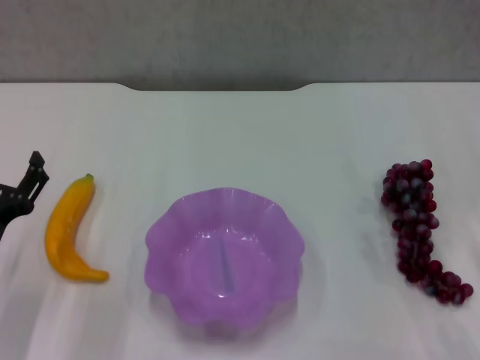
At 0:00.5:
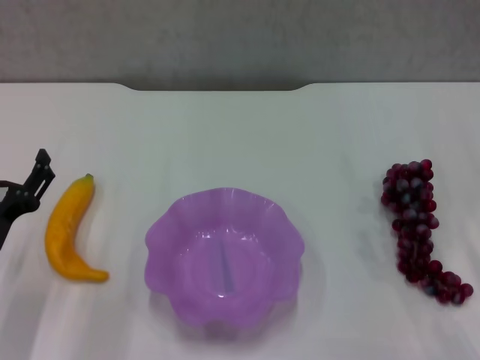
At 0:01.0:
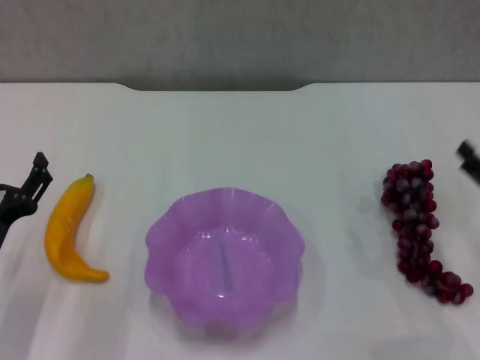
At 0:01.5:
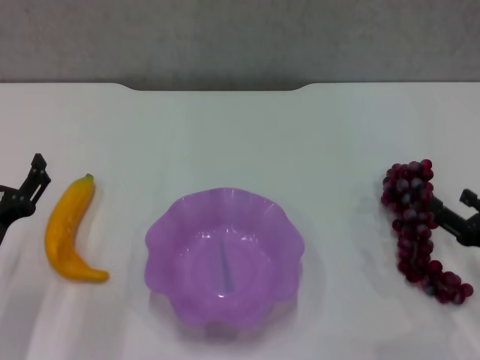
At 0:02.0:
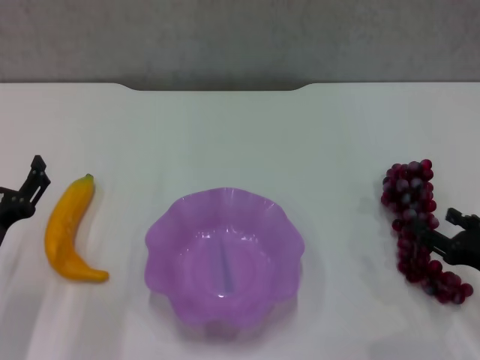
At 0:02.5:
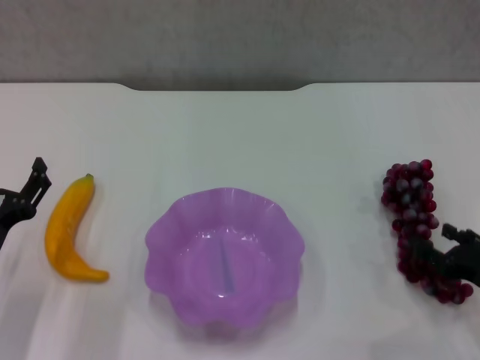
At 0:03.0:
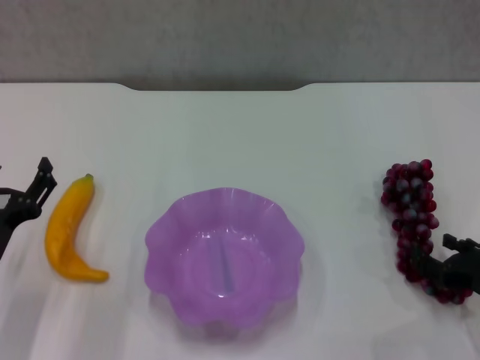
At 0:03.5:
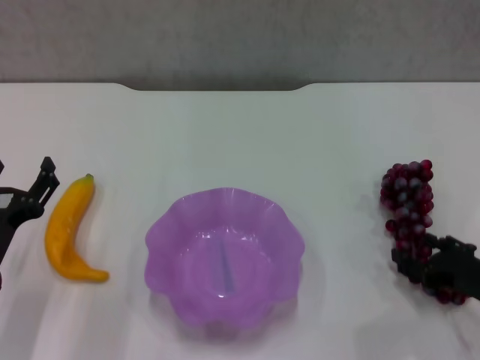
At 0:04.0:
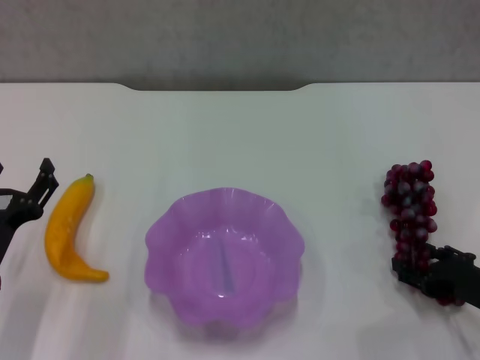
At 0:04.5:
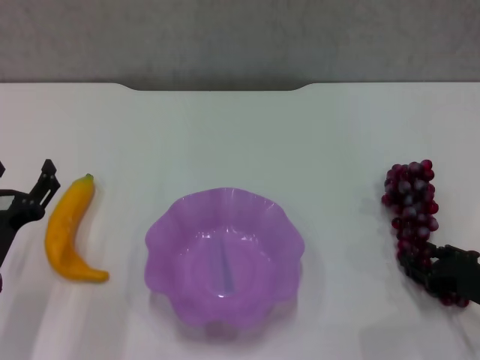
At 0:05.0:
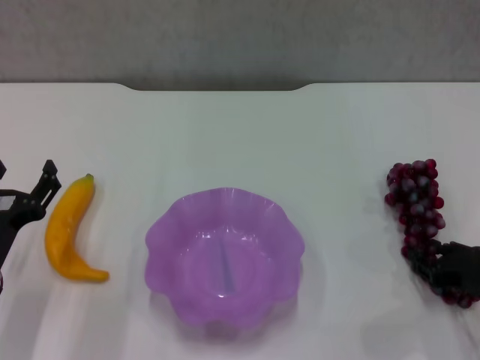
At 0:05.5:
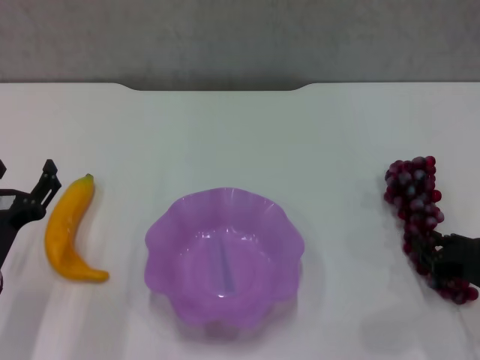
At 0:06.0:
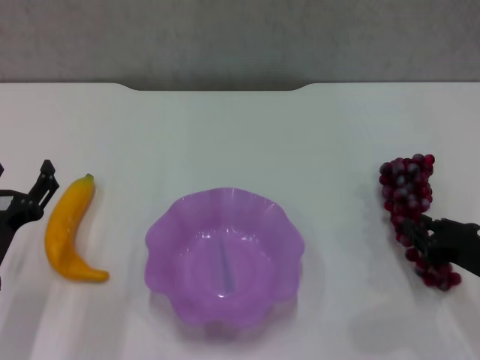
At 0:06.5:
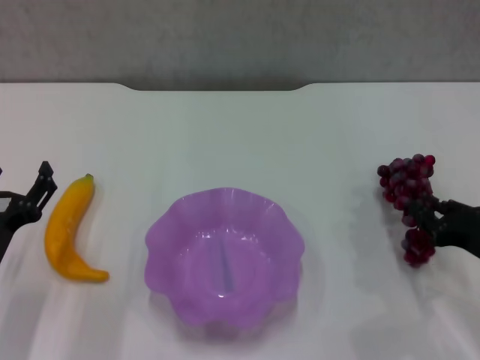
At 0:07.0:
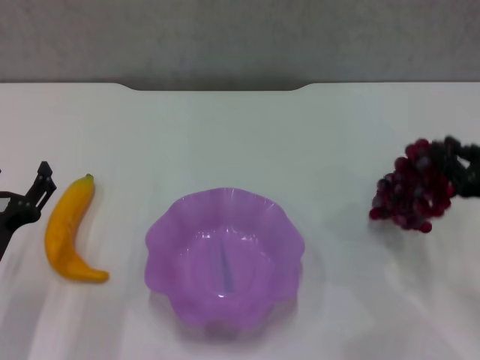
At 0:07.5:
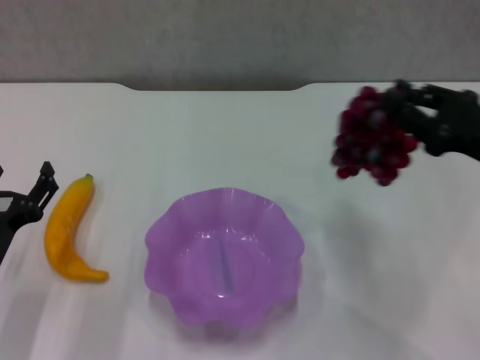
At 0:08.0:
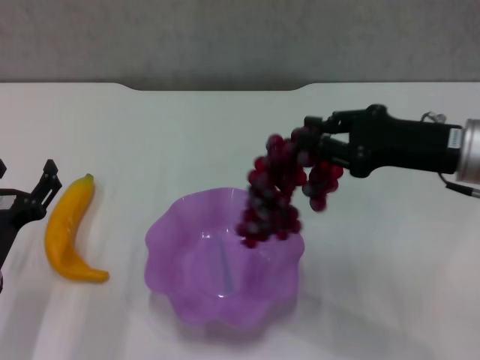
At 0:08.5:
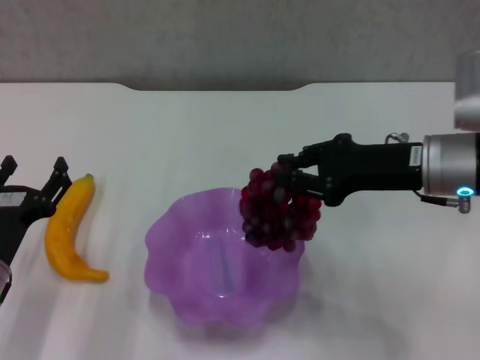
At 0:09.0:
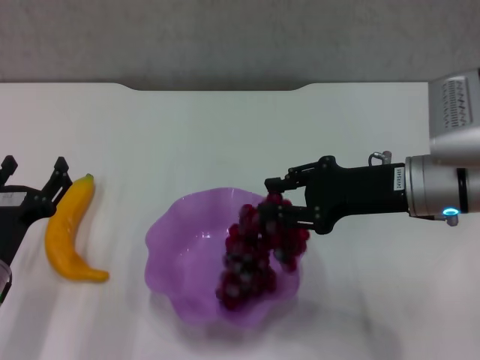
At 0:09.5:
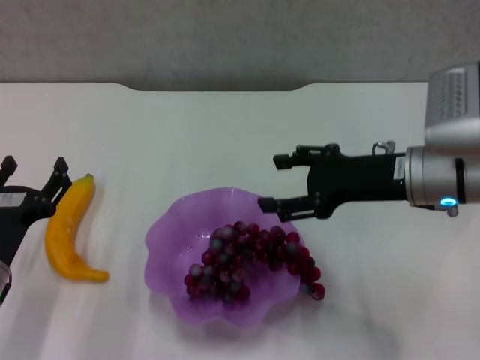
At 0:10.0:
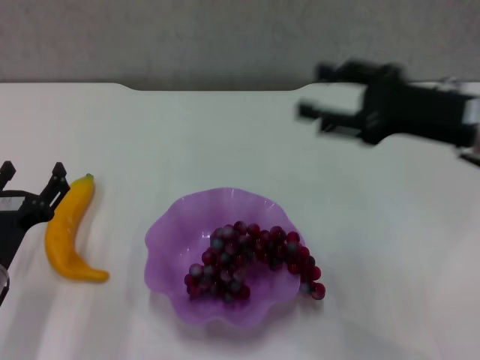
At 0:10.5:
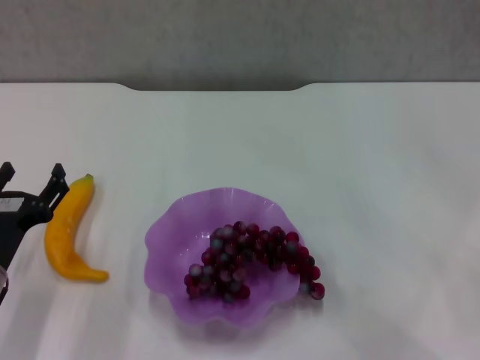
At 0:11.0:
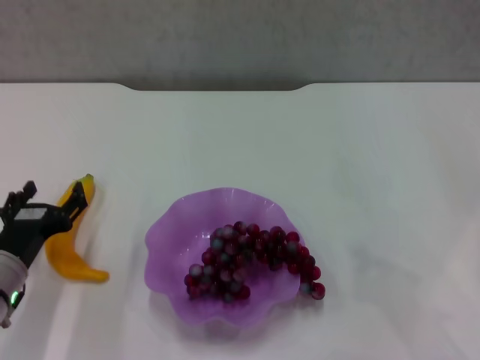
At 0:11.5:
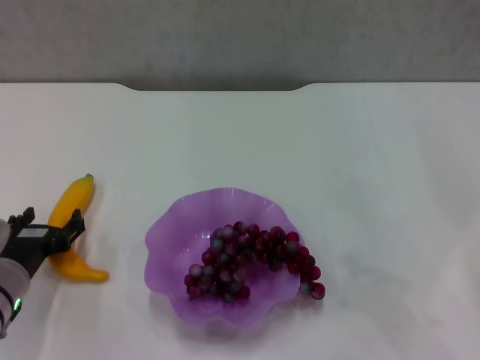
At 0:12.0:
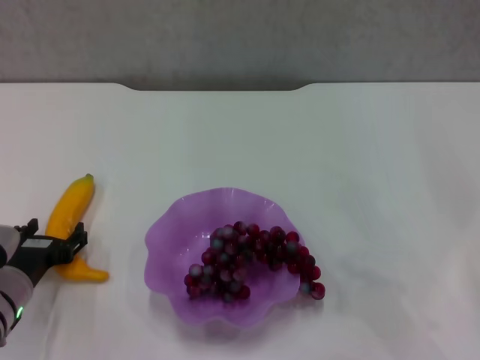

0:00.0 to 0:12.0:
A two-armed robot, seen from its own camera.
Step, 0:00.0 to 0:04.5: Grasp the grape with right gripper.
Step, 0:05.5 to 0:09.5: Place the grape in the purple plate with right gripper.
0:00.0 to 0:02.0: The right gripper is displaced downward by some 5 cm.
0:02.0 to 0:04.0: The grippers stay close to where they were, moving slightly.
0:04.0 to 0:06.0: The right gripper closes.
0:06.0 to 0:08.0: The right gripper goes some 20 cm upward, to the left and forward.
0:08.0 to 0:10.0: The right gripper opens its fingers.
0:10.0 to 0:12.0: The right gripper heads to the right, downward and backward, covering approximately 20 cm, and closes.

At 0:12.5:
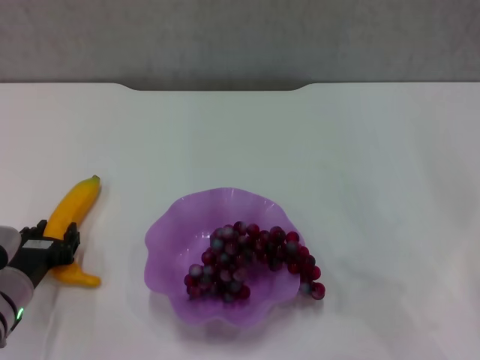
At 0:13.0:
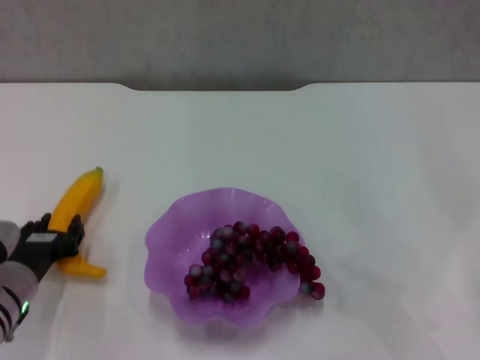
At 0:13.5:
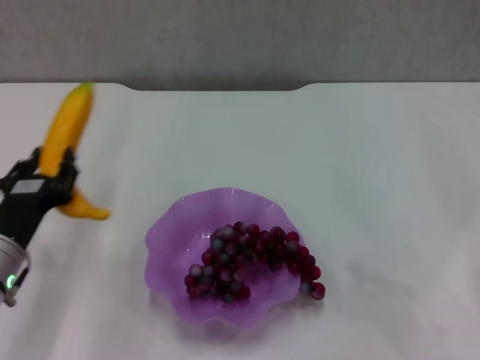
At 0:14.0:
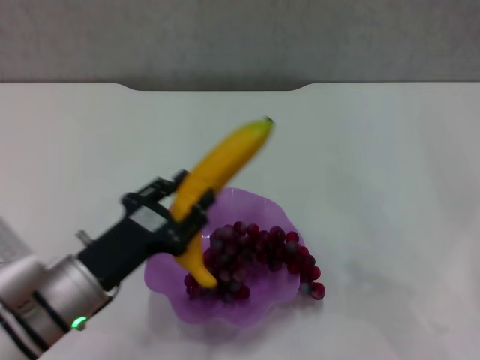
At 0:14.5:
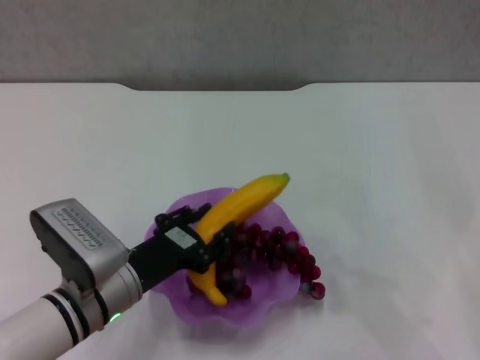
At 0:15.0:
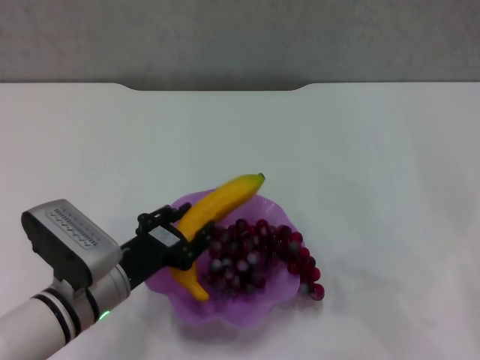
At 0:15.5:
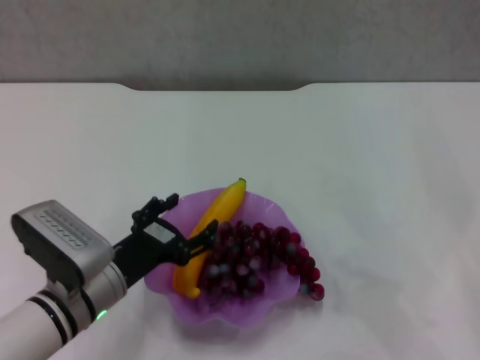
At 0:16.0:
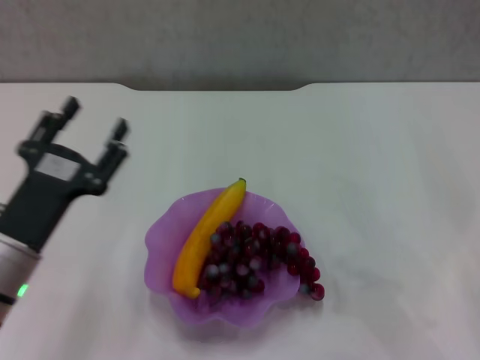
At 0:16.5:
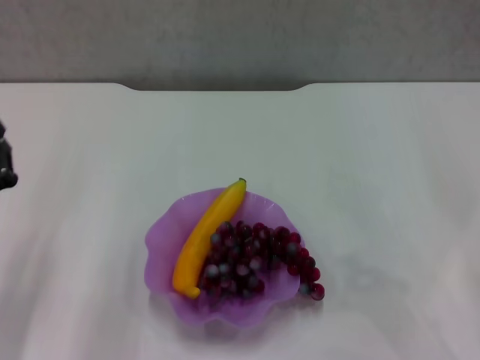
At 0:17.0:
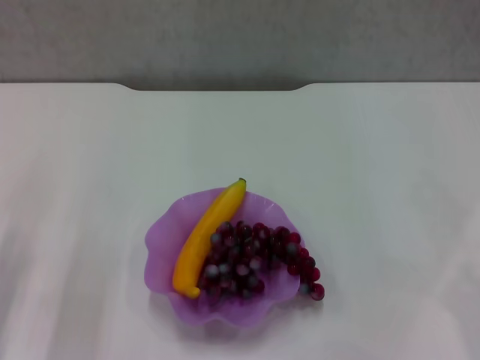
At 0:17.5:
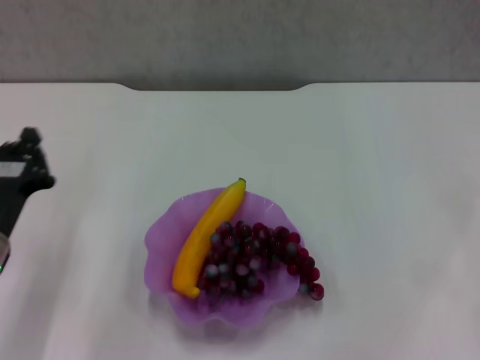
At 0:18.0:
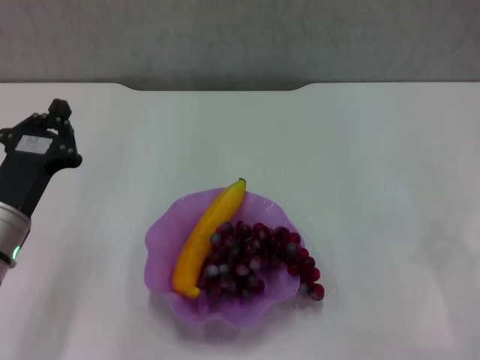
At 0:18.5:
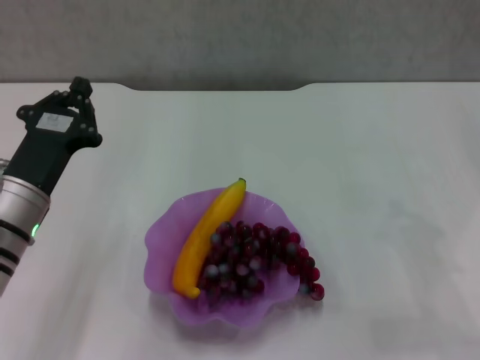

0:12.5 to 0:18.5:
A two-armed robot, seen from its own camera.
Step, 0:13.0 to 0:15.0: Place the banana in the purple plate with left gripper.
0:12.5 to 0:14.5: The left gripper heads to the right, covering roughly 10 cm.
0:14.5 to 0:16.5: The left gripper moves to the left, roughly 10 cm, and opens and closes again.
0:16.5 to 0:18.5: The left gripper is displaced forward and to the right by roughly 5 cm, and closes up.

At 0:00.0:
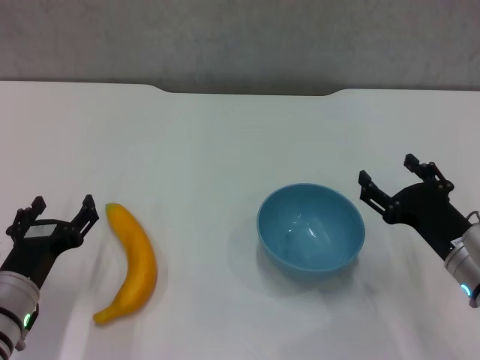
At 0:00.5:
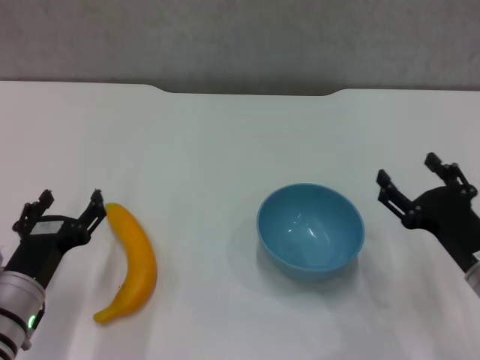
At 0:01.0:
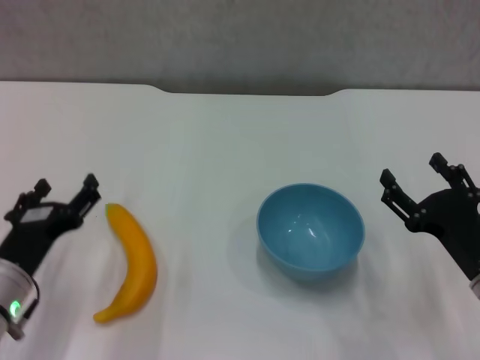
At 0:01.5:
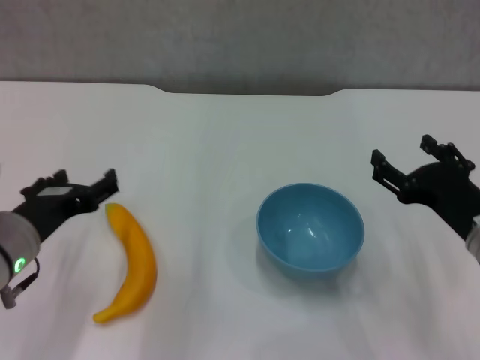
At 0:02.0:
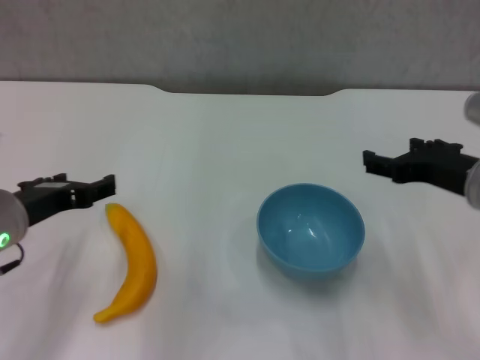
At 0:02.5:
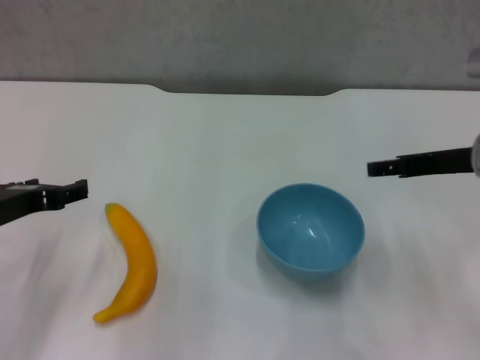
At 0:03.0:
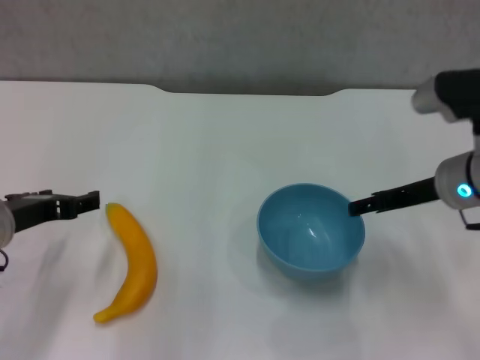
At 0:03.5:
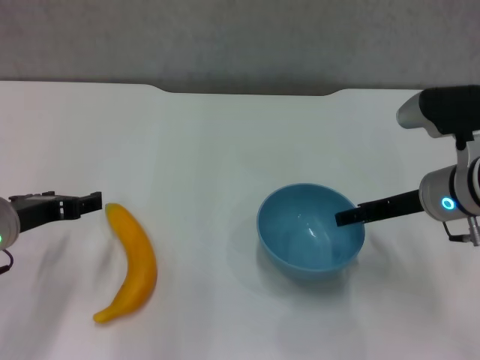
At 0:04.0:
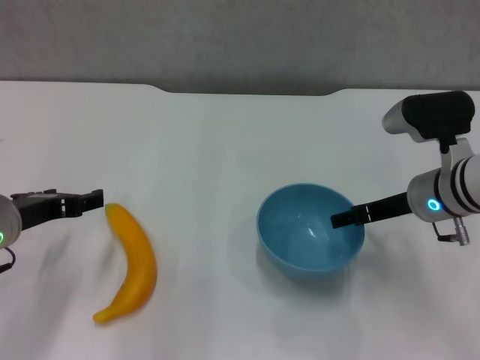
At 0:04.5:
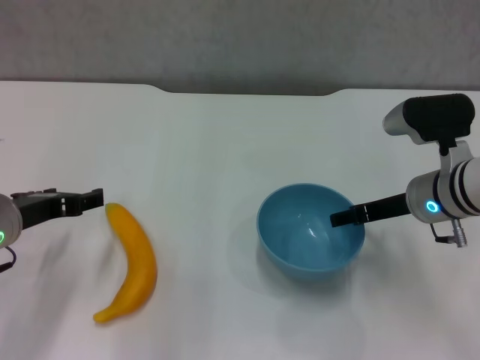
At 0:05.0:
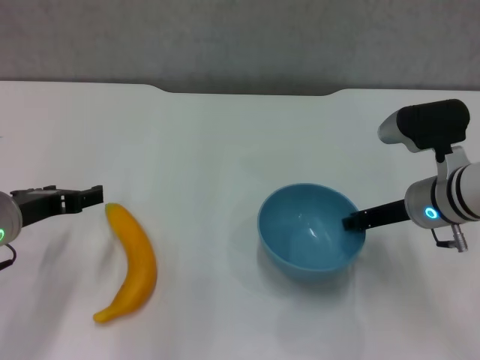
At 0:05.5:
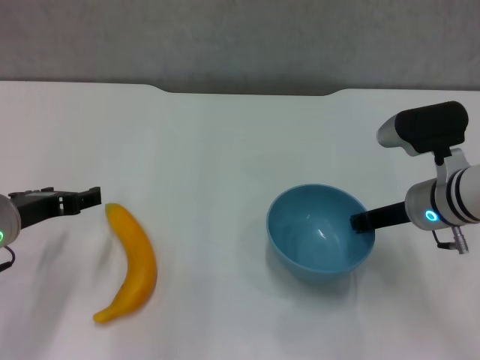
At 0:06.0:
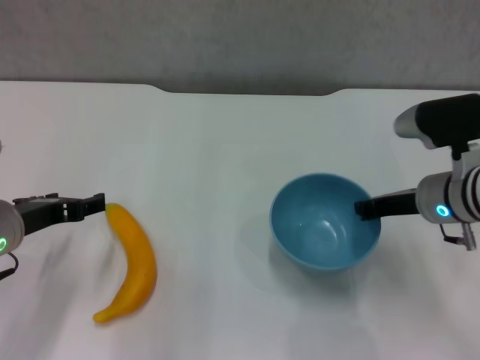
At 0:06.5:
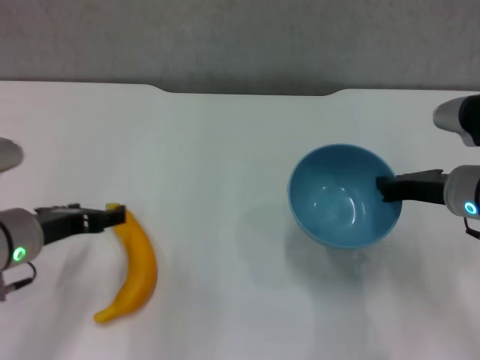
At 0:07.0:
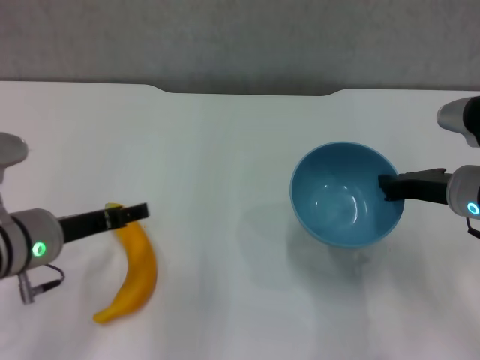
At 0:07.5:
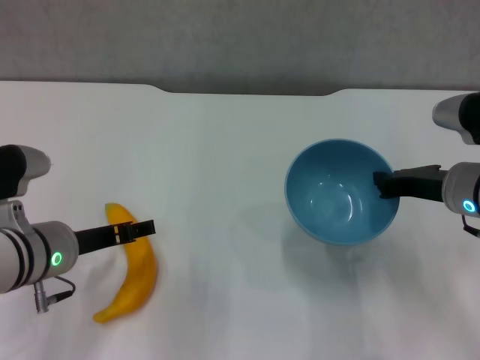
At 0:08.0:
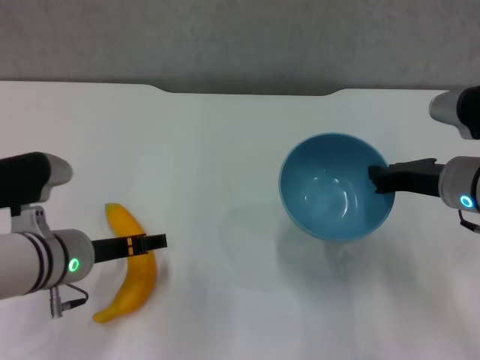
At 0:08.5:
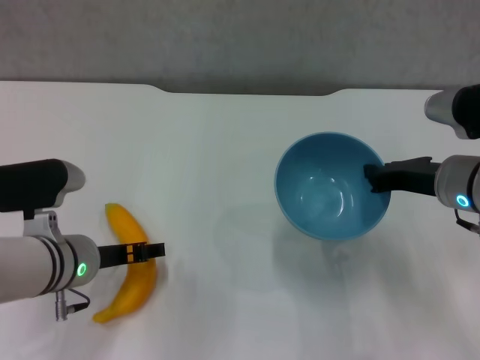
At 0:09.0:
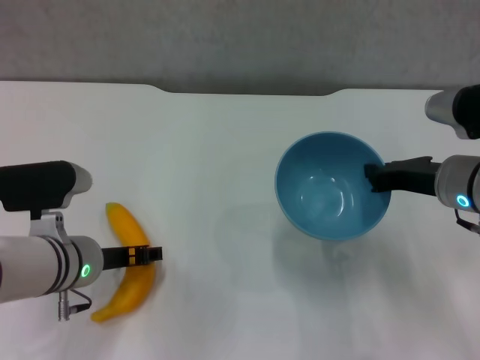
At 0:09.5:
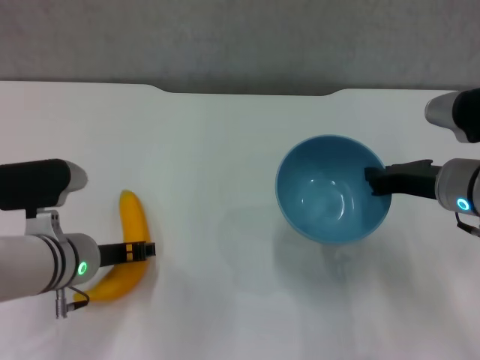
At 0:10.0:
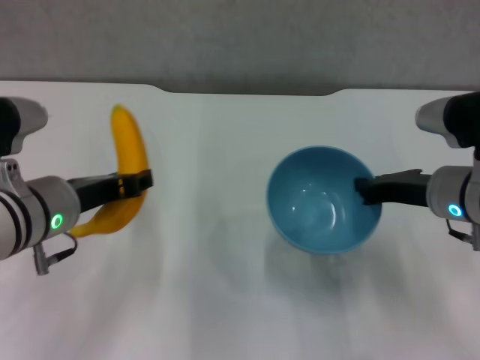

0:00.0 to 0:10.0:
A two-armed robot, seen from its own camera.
Step, 0:00.0 to 0:05.5: Grasp the blue bowl with right gripper.
Step, 0:06.0 to 0:06.5: Lift the blue bowl with right gripper.
Step, 0:07.0 to 0:09.0: Grasp the banana with left gripper.
0:00.0 to 0:02.0: Both grippers move upward, some 10 cm.
0:02.0 to 0:04.0: The right gripper is displaced forward and downward by approximately 10 cm.
0:04.0 to 0:06.0: The right gripper closes.
0:06.0 to 0:08.0: The left gripper heads to the right, covering about 5 cm.
0:08.0 to 0:10.0: The left gripper moves upward, approximately 5 cm, and closes up.
